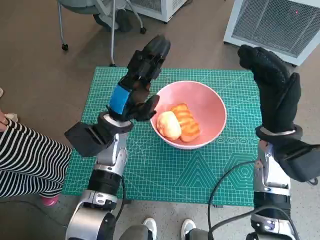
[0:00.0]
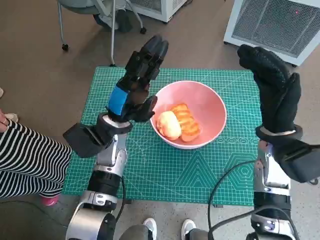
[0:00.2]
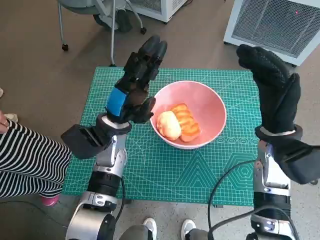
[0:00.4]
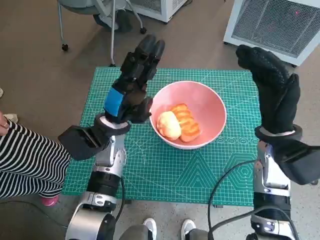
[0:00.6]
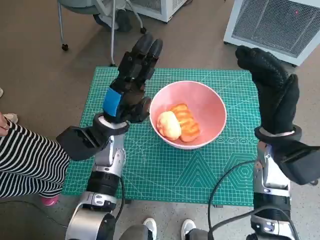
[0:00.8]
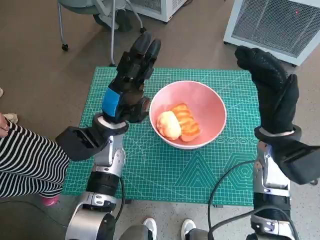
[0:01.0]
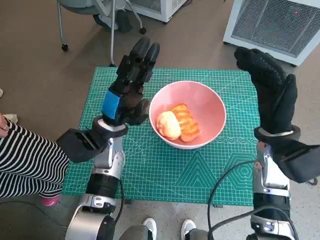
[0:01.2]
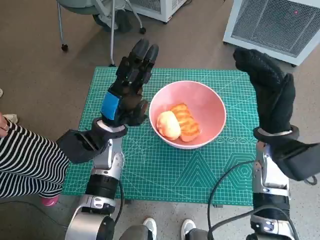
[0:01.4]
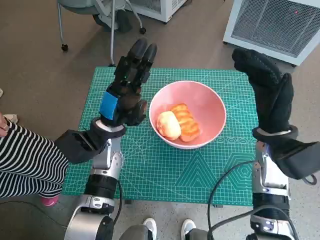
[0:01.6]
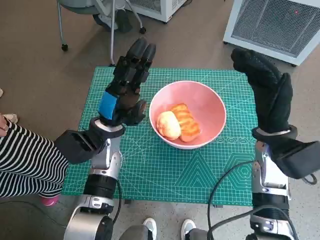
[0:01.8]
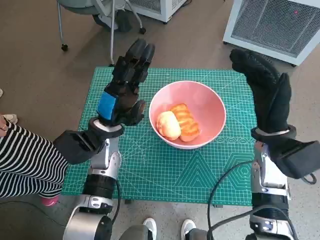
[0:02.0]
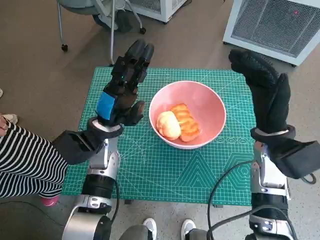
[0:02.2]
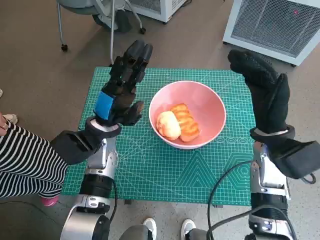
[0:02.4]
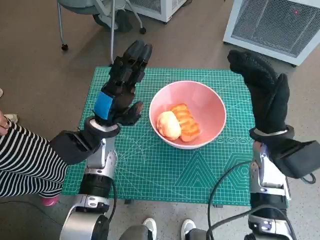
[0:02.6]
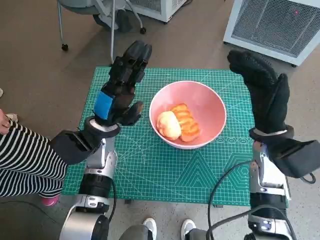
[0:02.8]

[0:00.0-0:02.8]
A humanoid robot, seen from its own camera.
Task of the whole recording: Push the bowl into the center of the table and put the bread into the bowl.
0:00.0 to 0:02.8: The hands make only small movements.

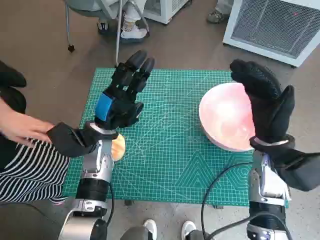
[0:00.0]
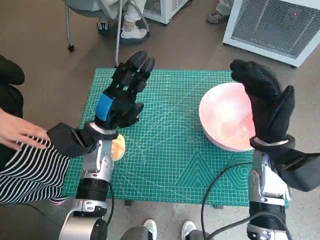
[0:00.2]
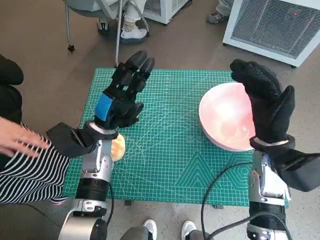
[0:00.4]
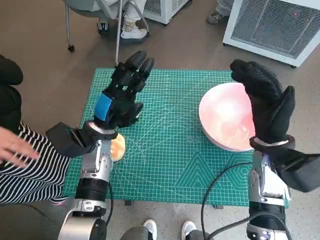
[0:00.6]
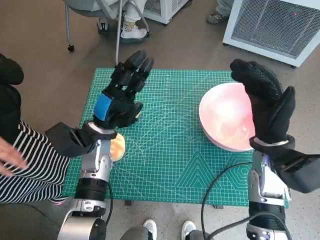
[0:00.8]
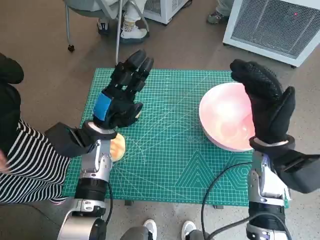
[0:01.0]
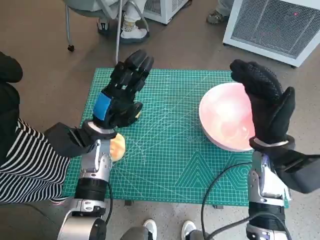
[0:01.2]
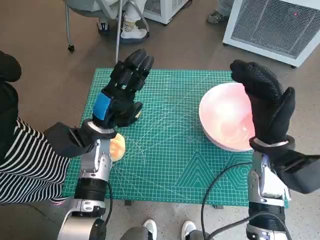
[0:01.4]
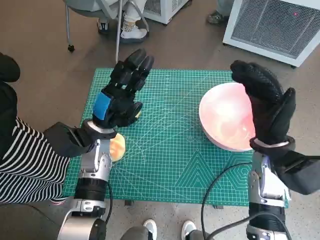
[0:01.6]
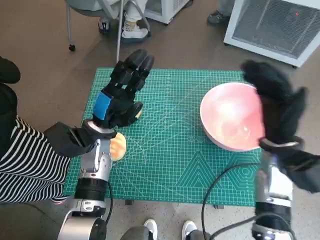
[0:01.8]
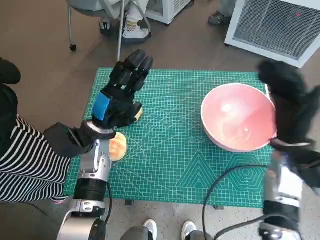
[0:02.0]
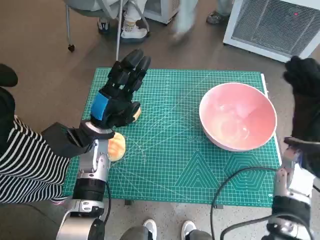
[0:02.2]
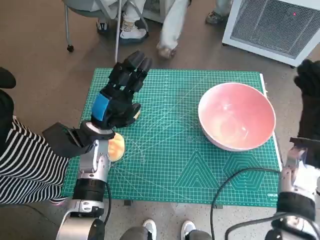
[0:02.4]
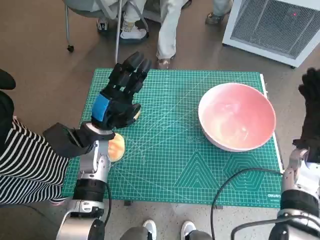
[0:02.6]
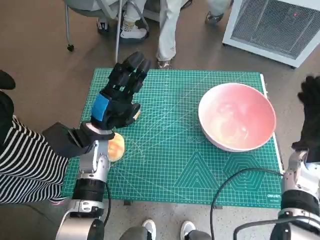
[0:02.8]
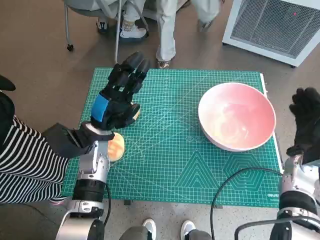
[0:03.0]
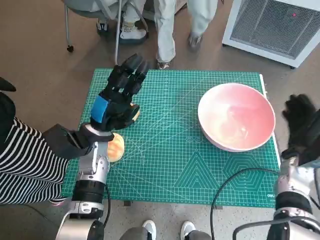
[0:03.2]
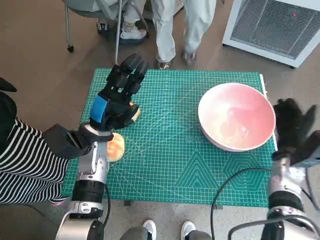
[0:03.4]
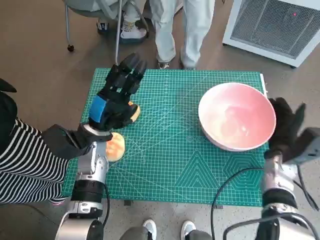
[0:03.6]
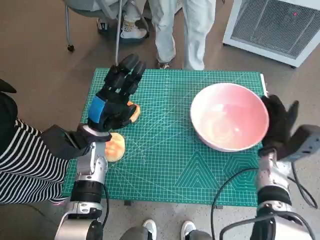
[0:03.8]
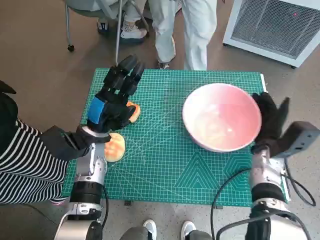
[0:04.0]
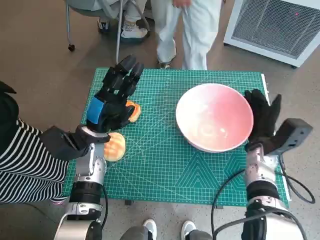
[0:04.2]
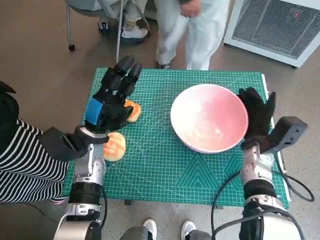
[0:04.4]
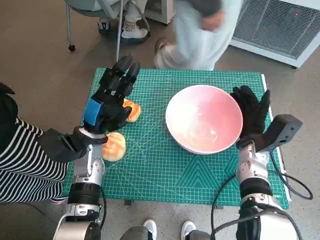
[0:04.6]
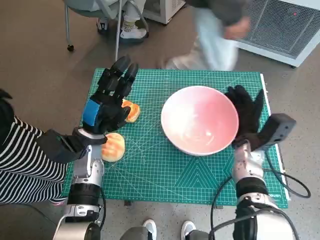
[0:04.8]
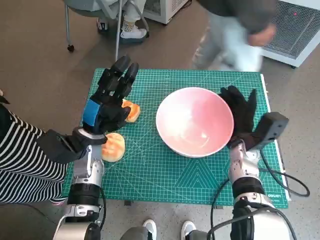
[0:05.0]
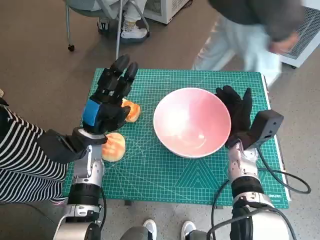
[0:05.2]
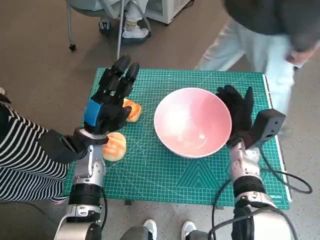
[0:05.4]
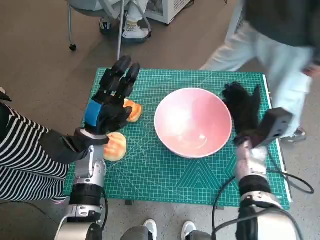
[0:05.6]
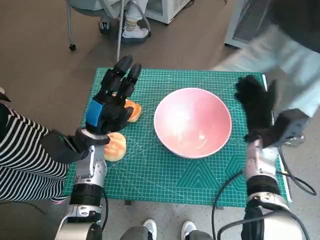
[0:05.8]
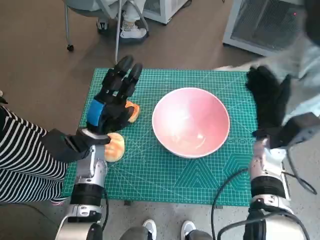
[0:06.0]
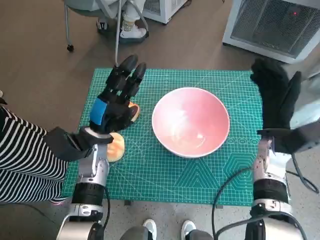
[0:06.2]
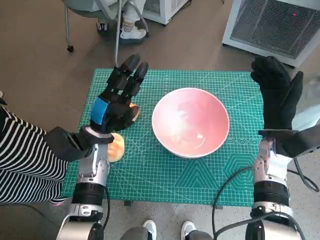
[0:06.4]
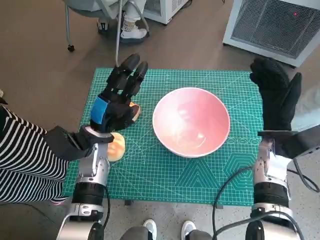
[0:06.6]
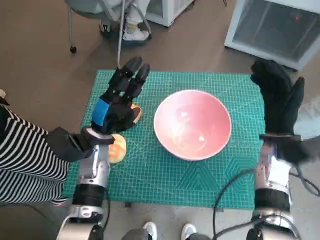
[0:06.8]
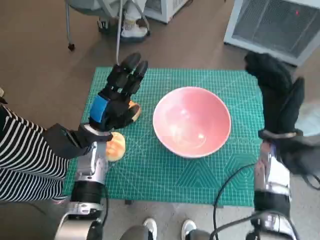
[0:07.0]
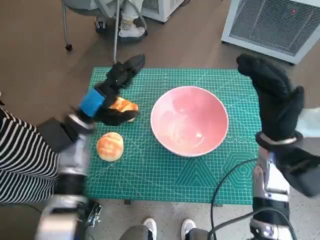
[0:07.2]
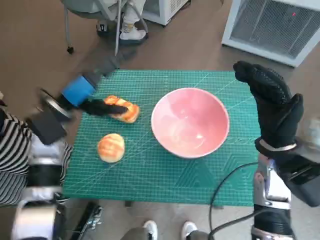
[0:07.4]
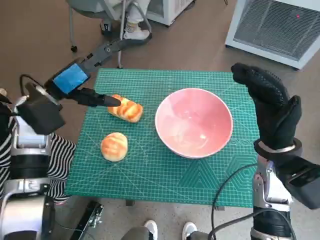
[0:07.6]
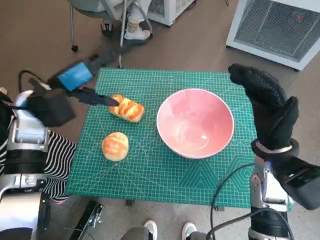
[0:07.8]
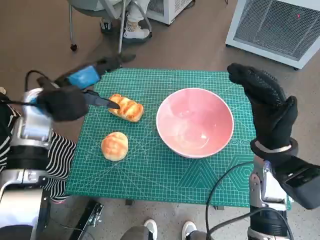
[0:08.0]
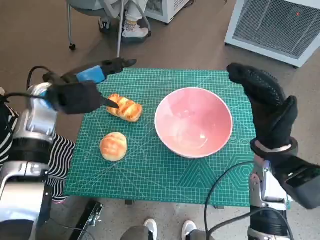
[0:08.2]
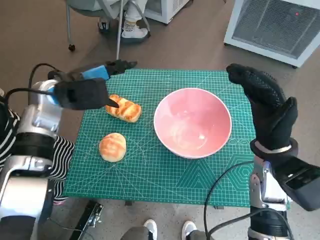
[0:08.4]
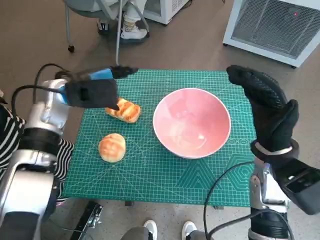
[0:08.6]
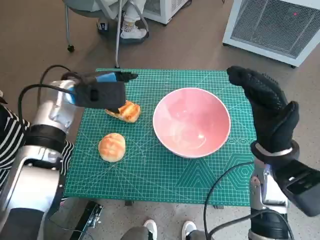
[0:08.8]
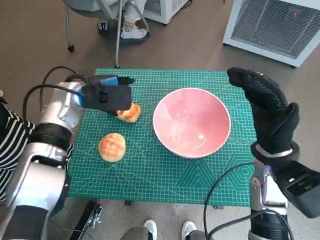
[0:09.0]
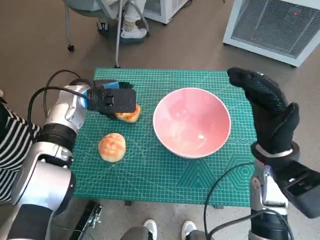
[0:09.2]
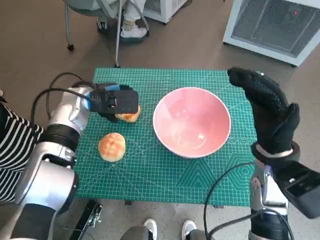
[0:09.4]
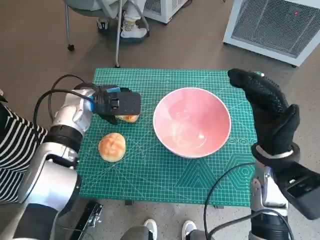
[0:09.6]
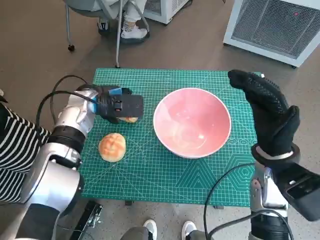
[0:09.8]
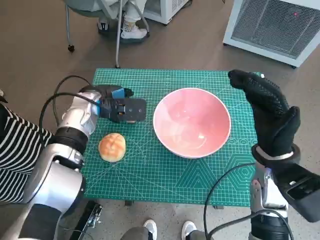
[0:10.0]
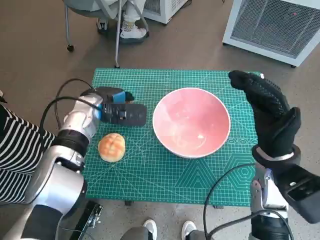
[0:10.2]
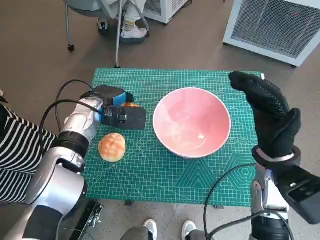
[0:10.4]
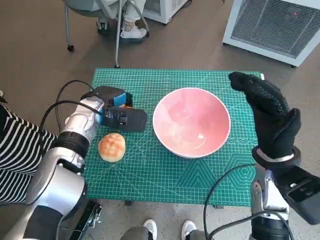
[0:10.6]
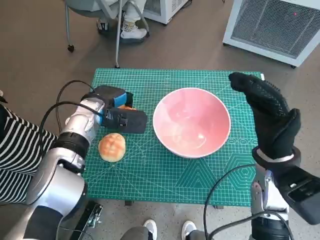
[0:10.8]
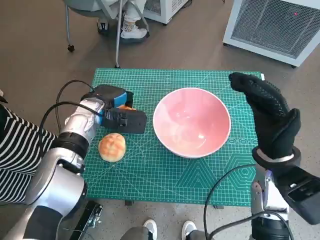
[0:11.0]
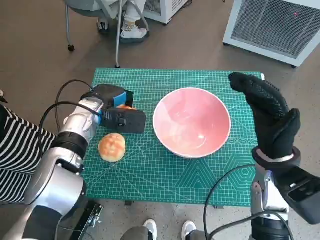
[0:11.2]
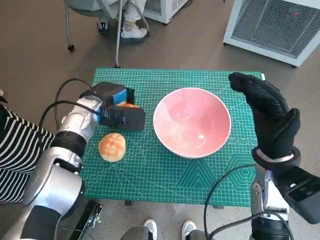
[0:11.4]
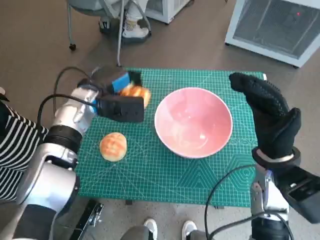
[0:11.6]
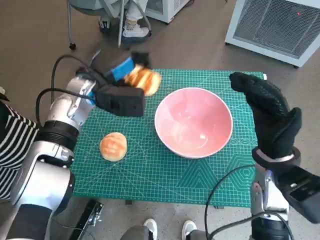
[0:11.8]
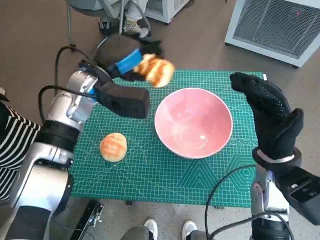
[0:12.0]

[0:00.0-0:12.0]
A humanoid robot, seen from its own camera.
Task of the whole recording: Push the bowl into the center of the table and put the bread into the bowl.
Step, 0:00.0 to 0:05.6: Move the pink bowl to the center of table with right hand.
Step, 0:06.0 to 0:10.6: Grasp the long bread with left hand.
0:01.6 to 0:03.0: The right hand shifts about 10 cm to the right and downward.
0:03.0 to 0:04.4: The right hand travels to the left by some 10 cm.
0:06.0 to 0:07.6: The left hand heads upward and to the left, covering roughly 15 cm; the right hand travels upward and backward by approximately 10 cm.
0:07.6 to 0:09.0: The left hand heads forward, covering some 5 cm.
0:09.0 to 0:10.4: The left hand heads downward, covering some 5 cm.
0:10.4 to 0:12.0: The left hand moves upward, about 10 cm.

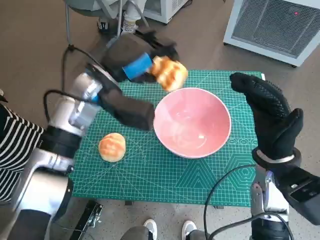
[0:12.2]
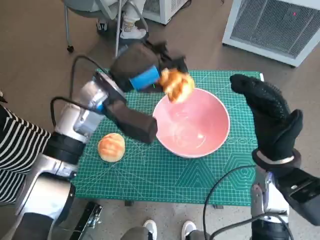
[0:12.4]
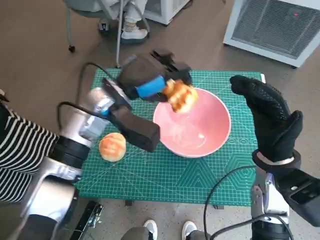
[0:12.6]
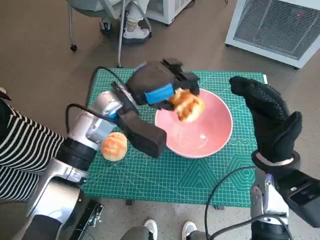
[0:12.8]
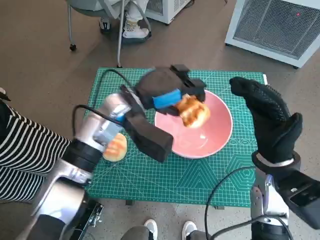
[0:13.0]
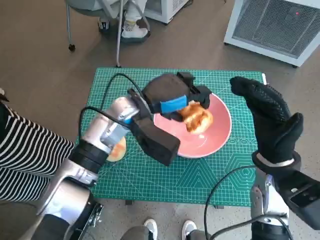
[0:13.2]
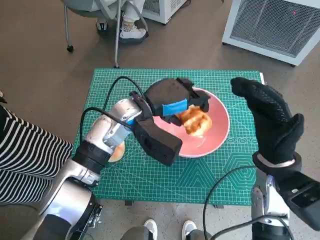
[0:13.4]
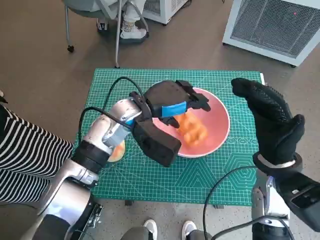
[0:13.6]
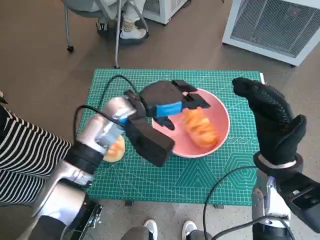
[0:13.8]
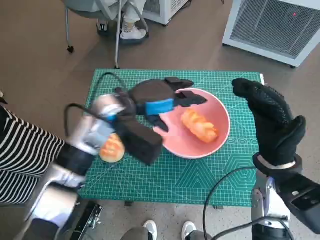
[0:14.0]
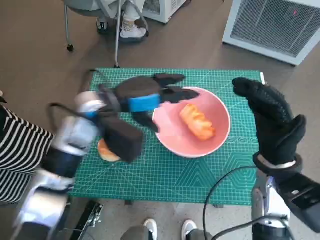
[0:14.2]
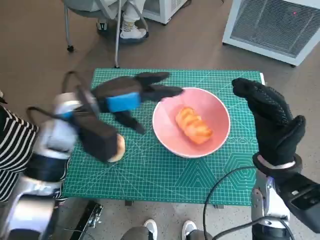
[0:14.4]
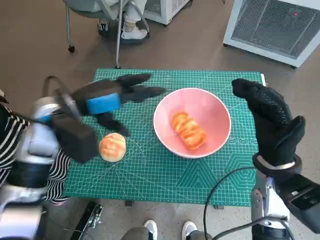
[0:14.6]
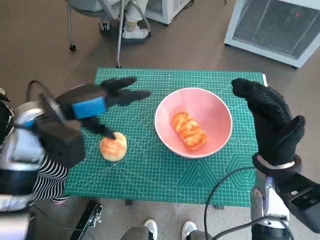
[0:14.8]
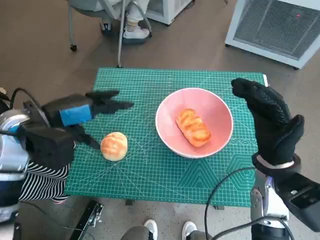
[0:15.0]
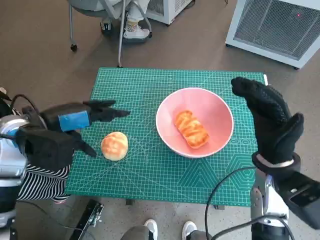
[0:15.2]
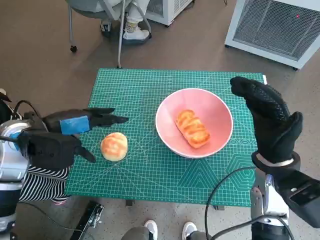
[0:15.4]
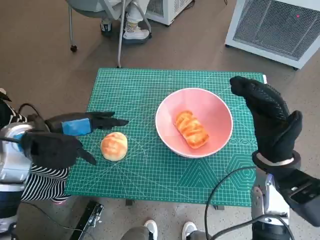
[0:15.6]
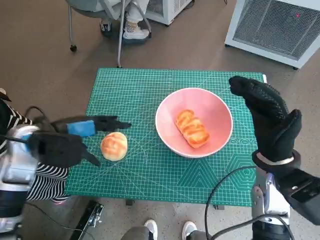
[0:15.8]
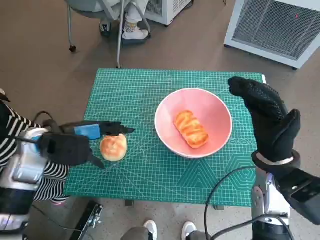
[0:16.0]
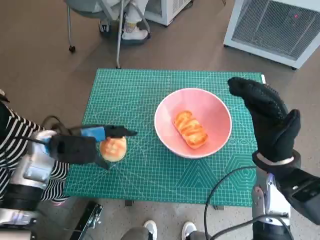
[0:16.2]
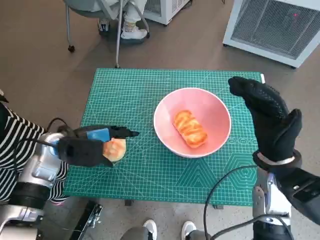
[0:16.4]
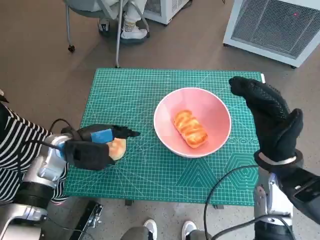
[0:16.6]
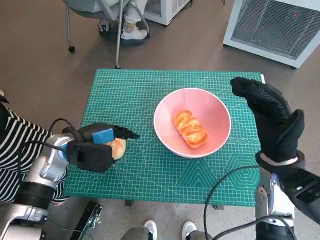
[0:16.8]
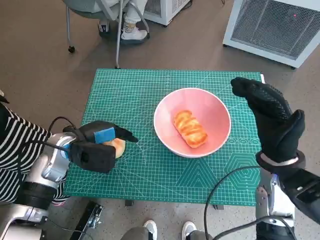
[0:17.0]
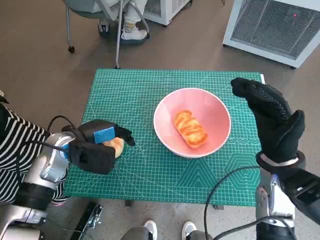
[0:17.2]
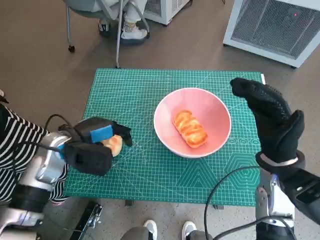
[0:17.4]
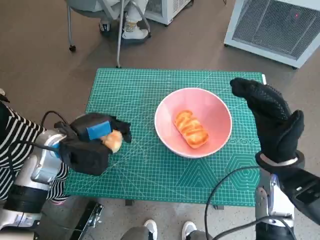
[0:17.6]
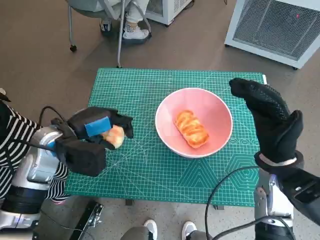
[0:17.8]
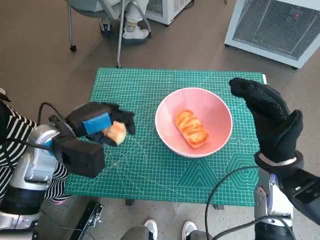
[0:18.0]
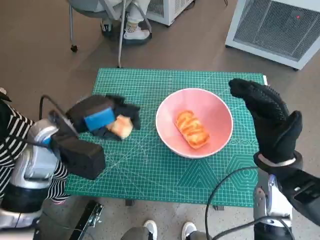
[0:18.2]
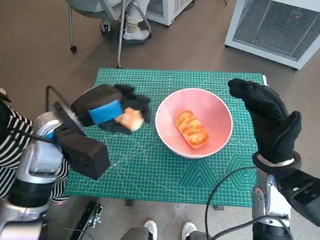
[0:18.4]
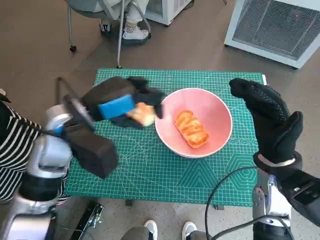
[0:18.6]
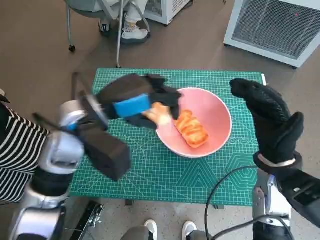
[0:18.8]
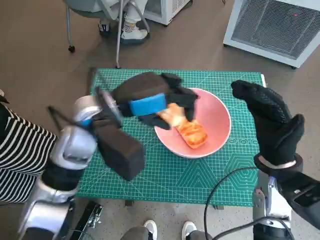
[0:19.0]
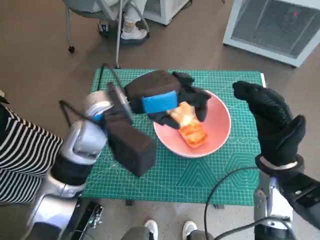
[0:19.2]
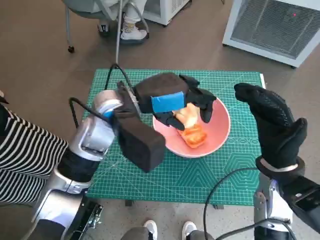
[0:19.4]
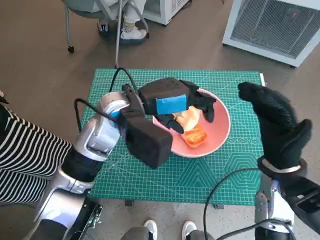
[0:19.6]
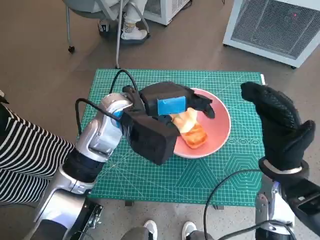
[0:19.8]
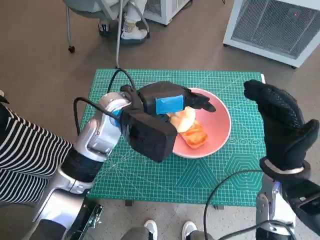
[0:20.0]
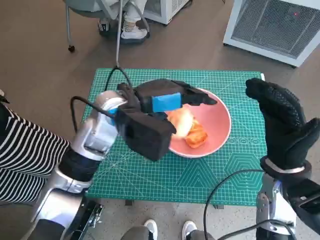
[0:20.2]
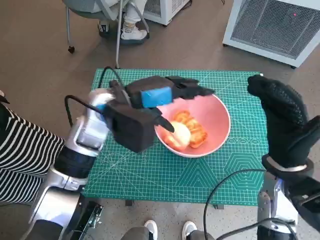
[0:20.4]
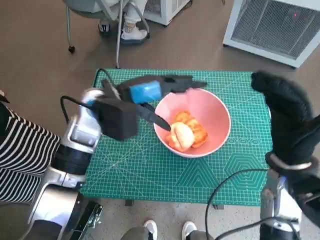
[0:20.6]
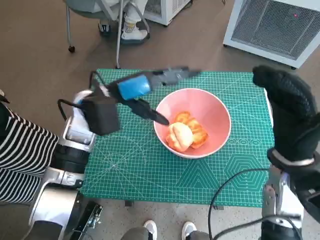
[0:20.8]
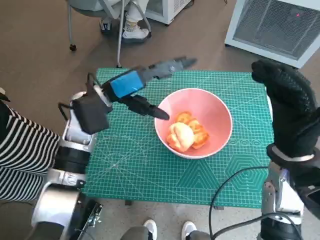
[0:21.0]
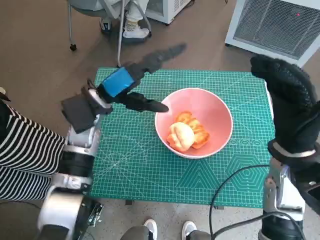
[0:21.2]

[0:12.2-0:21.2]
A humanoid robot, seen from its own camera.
Task of the whole recording: Push the bowl into the center of the table and put the bread into the bowl.
Step, 0:12.2 to 0:14.4: Place the long bread in pink bowl with left hand.
Step, 0:14.6 to 0:17.2: Grasp the round bread with left hand.
Step, 0:17.4 to 0:20.8: Place the round bread in pink bowl with left hand.
0:12.2 to 0:13.8: The left hand ends up roughly 5 cm from where it was.
0:13.8 to 0:15.2: The left hand goes about 15 cm to the left.
0:15.2 to 0:16.6: The left hand goes some 10 cm downward.
0:16.6 to 0:18.2: The left hand moves upward, some 5 cm.
0:18.2 to 0:19.8: The left hand travels to the right by about 10 cm.
0:19.8 to 0:21.2: The left hand travels to the left by roughly 5 cm.
